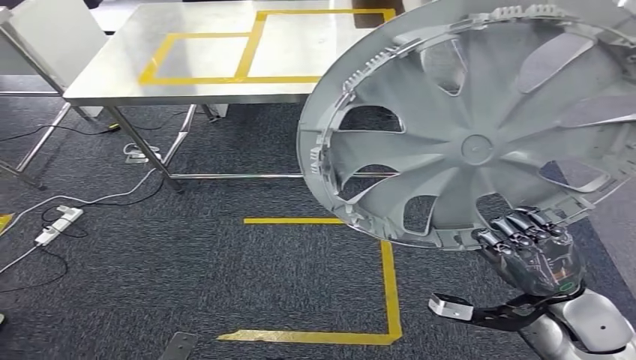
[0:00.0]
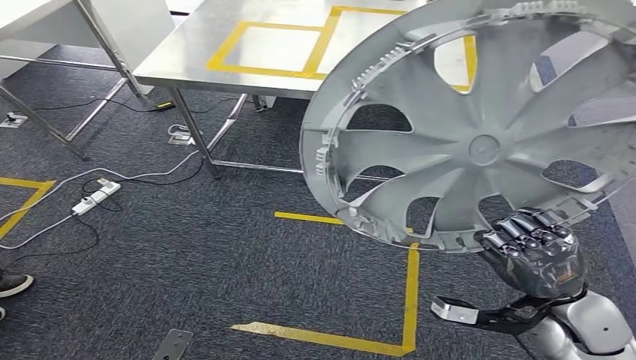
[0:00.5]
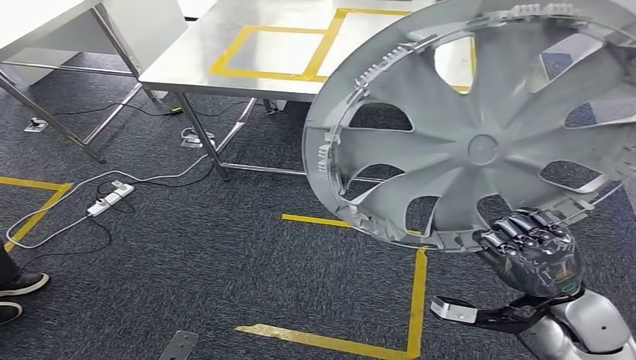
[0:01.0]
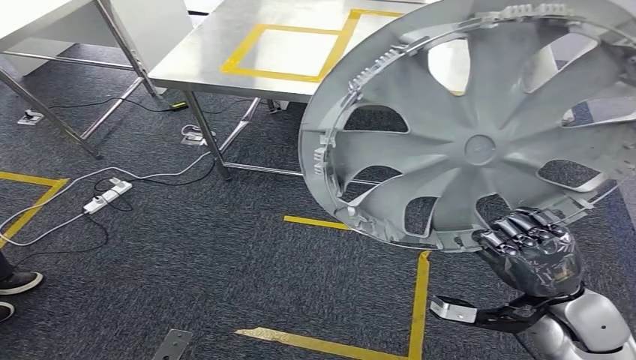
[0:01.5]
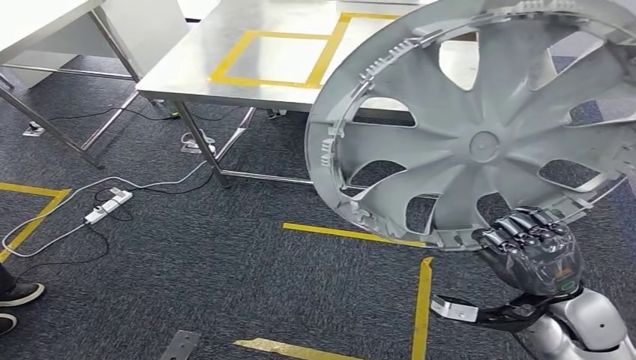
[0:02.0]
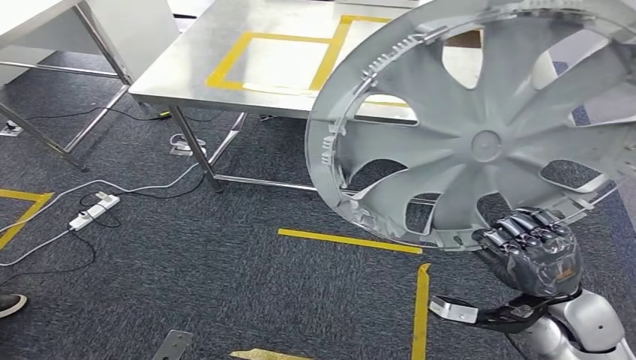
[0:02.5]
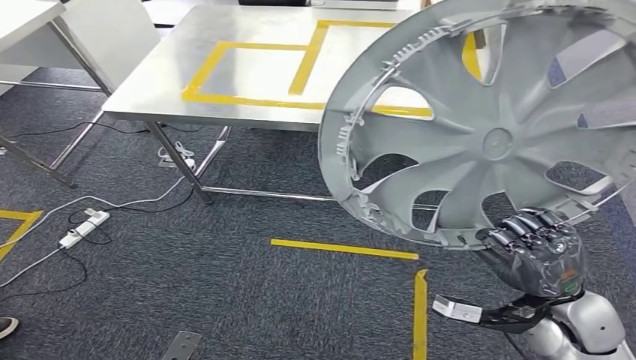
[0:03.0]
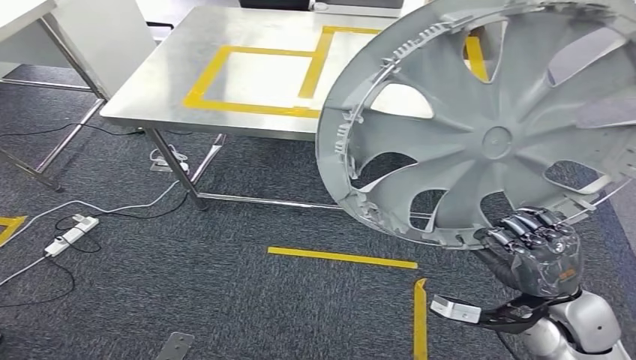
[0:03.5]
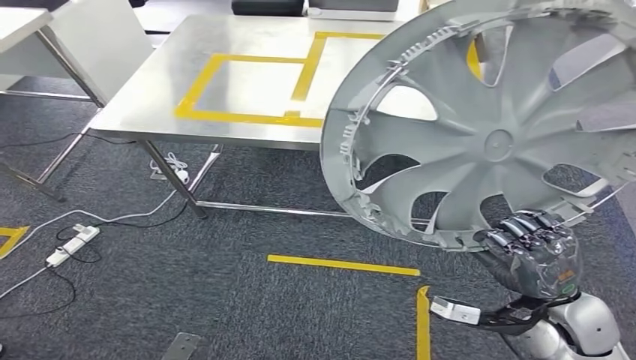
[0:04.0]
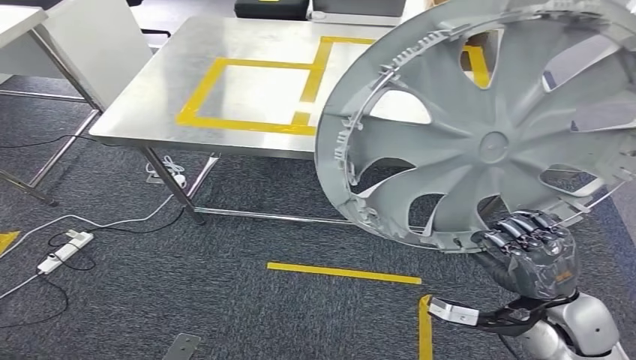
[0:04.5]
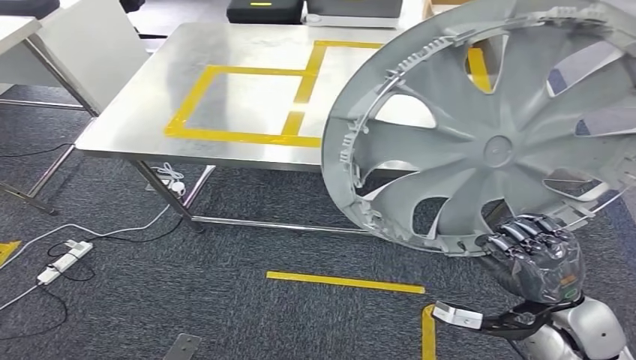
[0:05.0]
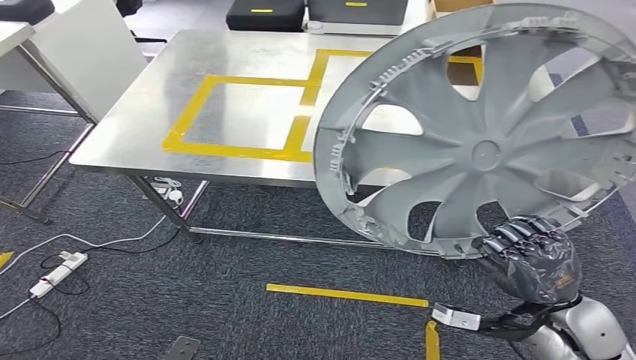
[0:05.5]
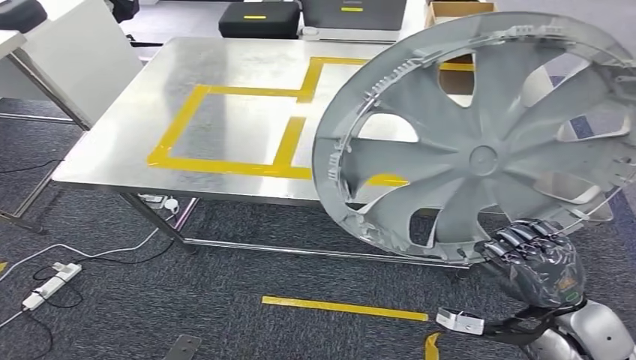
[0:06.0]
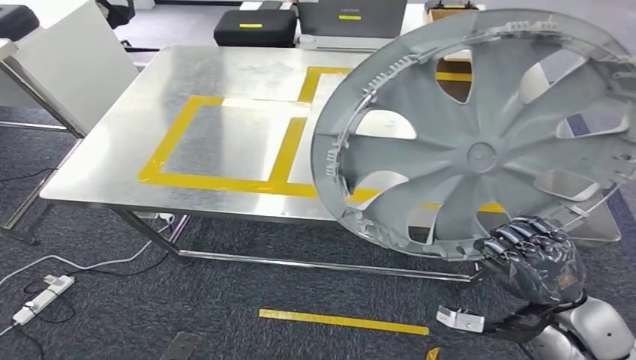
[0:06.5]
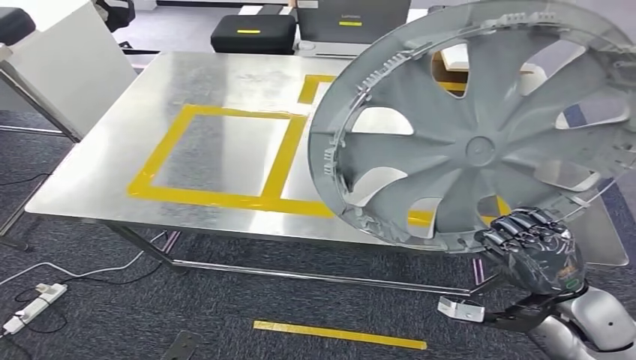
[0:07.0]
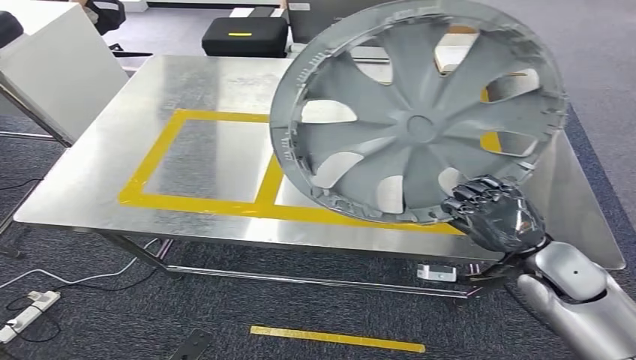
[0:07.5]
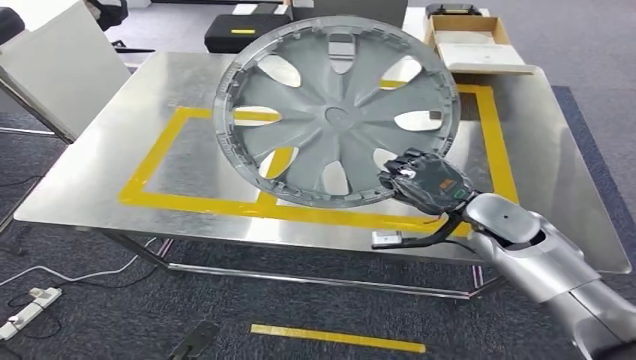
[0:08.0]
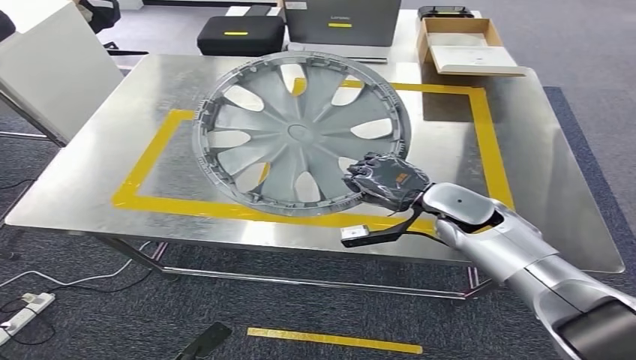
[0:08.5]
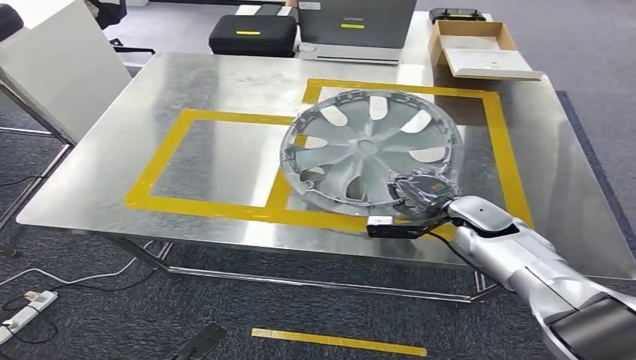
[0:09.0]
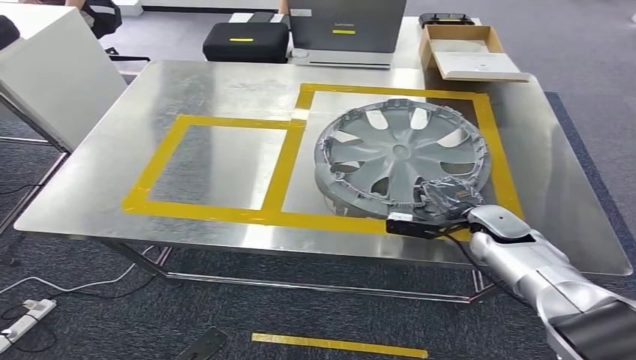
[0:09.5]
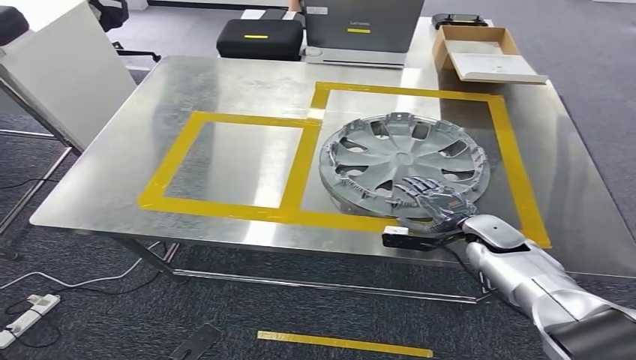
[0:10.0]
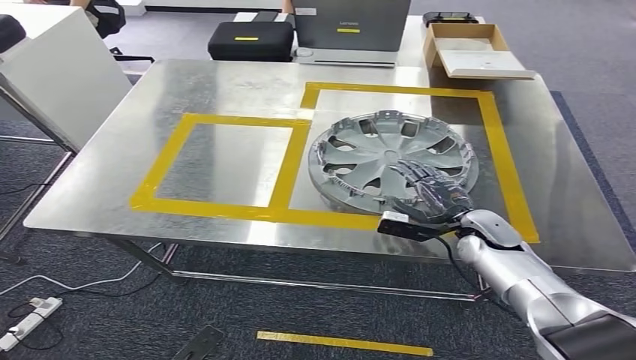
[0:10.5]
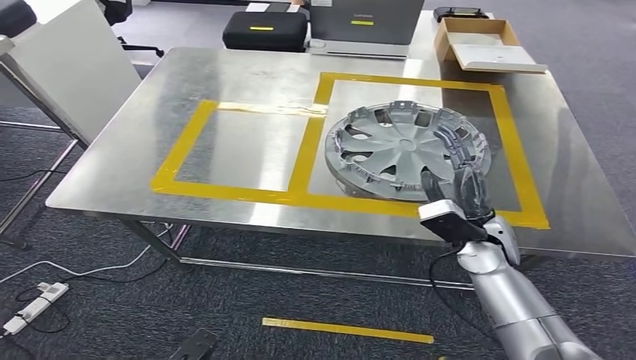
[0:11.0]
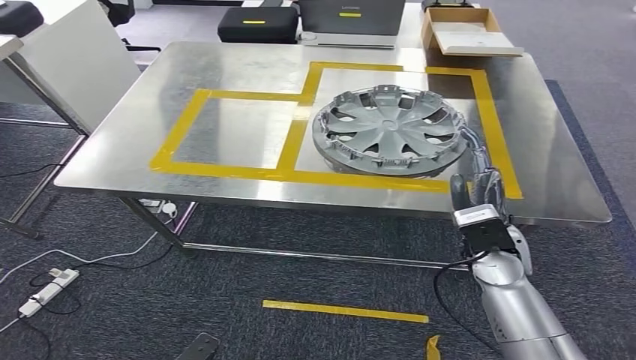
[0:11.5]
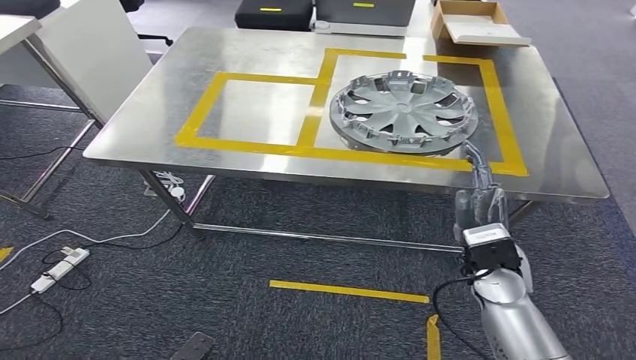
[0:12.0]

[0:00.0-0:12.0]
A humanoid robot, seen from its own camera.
Step, 0:00.0 to 0:06.0: Move the small component to the workbench.

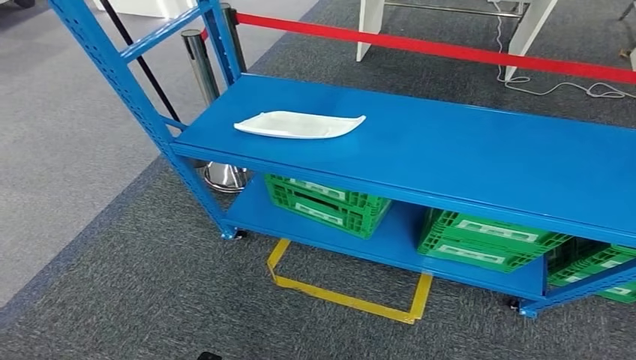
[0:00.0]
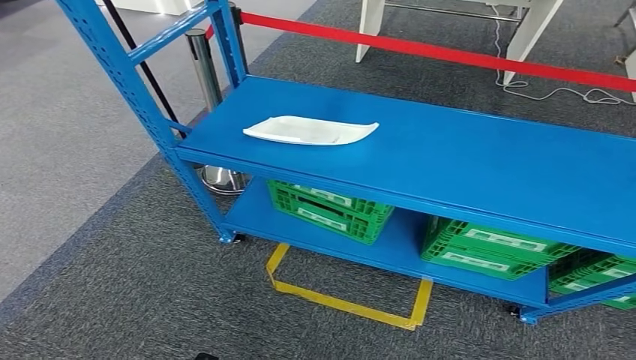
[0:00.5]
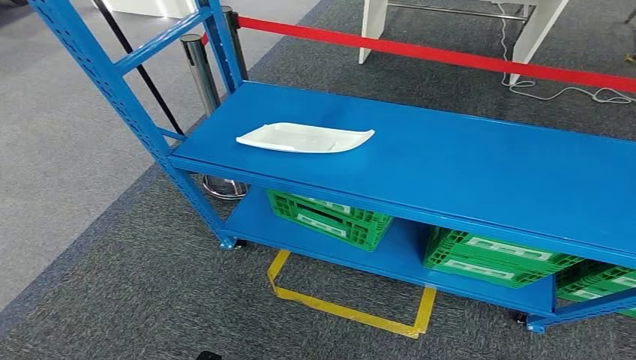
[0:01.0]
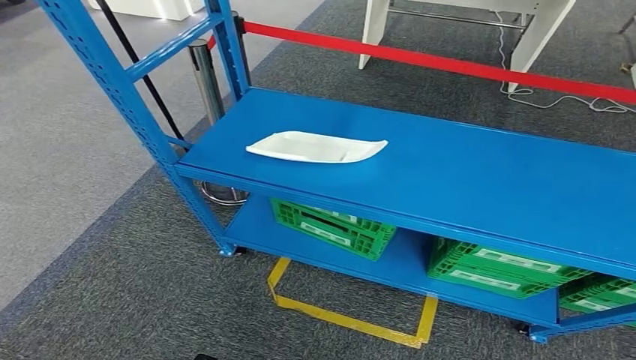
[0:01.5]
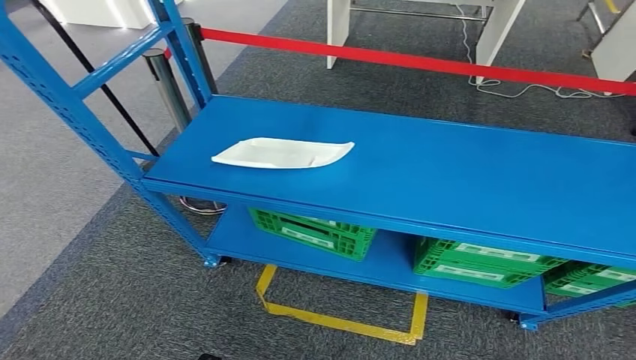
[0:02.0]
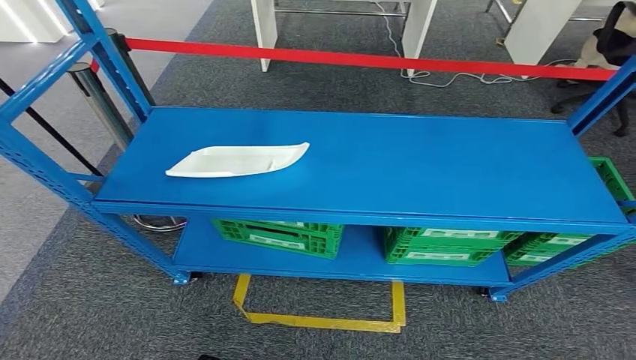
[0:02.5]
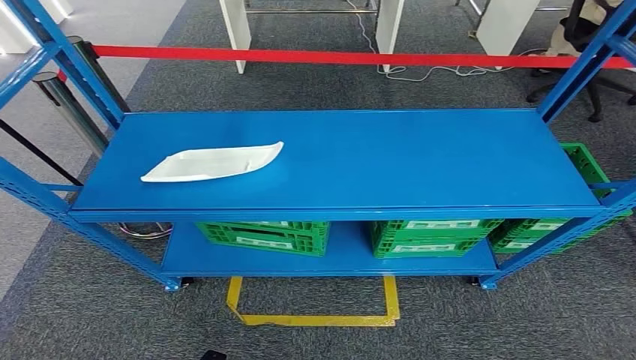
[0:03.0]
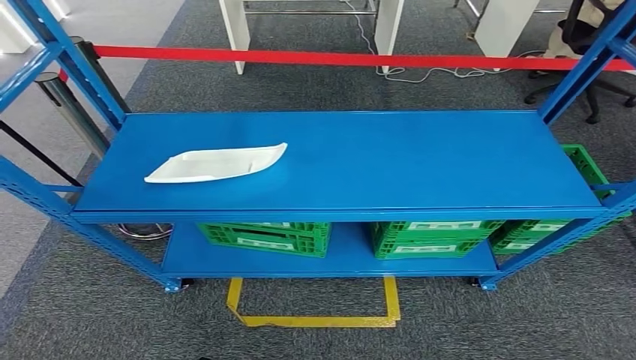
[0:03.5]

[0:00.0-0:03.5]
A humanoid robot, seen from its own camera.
Step, 0:00.0 to 0:03.5: Move to the initial position at the workbench.
